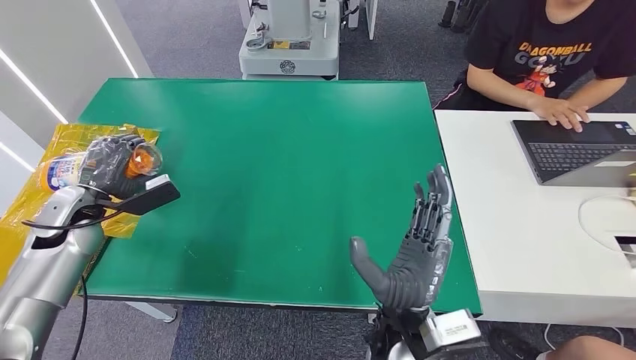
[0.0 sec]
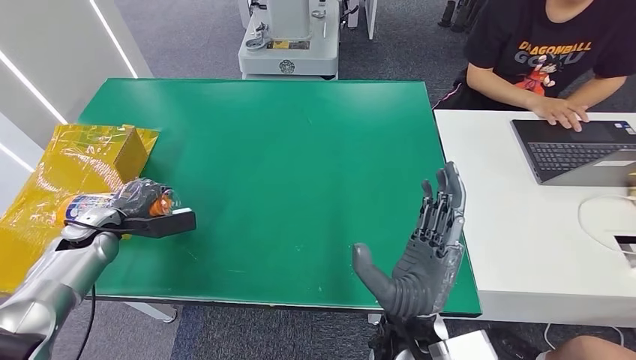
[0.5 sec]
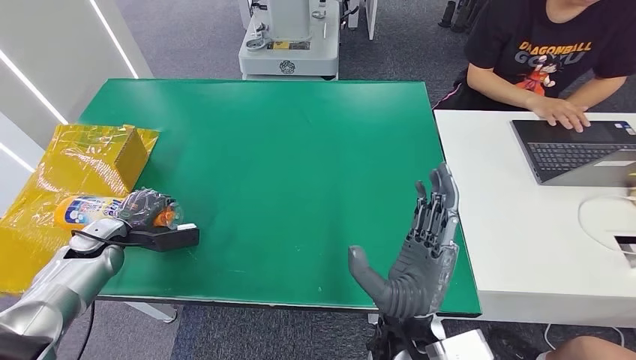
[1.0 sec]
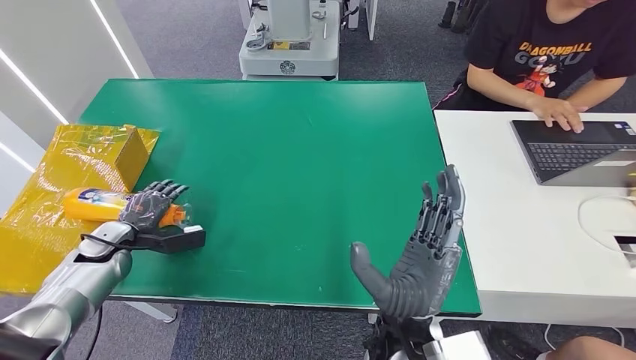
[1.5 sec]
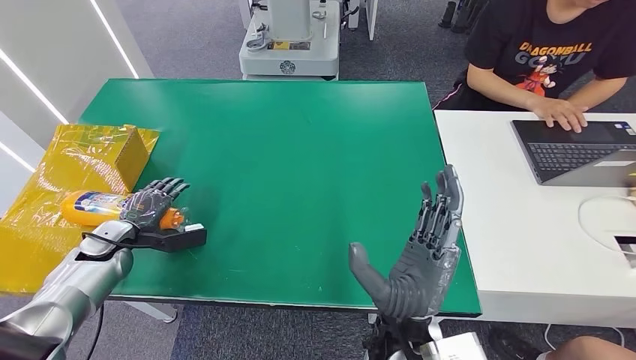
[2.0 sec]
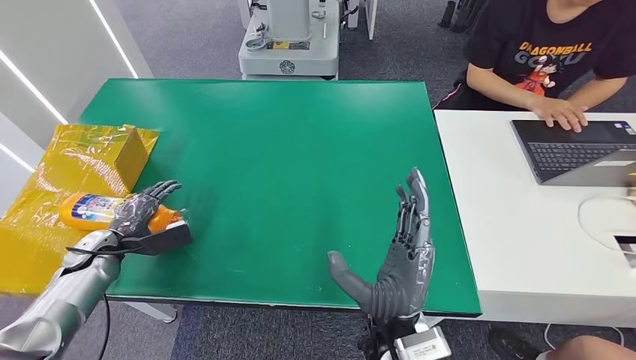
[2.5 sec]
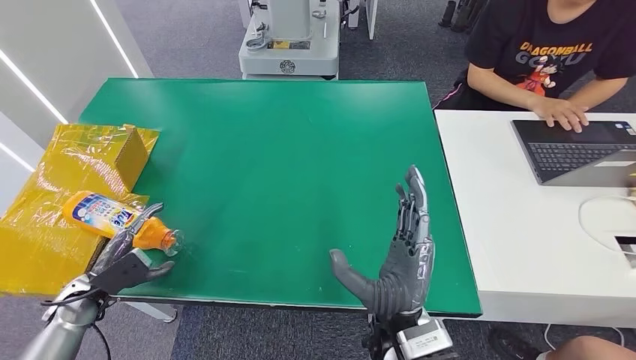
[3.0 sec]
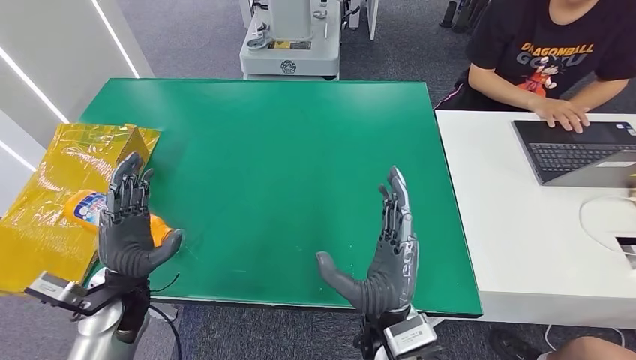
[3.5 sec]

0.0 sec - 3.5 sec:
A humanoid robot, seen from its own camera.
Step, 0.0 sec - 3.0 sec: Turn the bottle to the front side.
0.0 sec - 2.0 sec: The left hand shifts some 10 cm downward.
2.0 sec - 3.5 sec: The left hand shifts about 15 cm to the right and backward.
